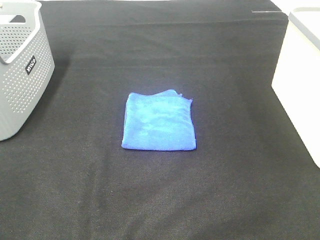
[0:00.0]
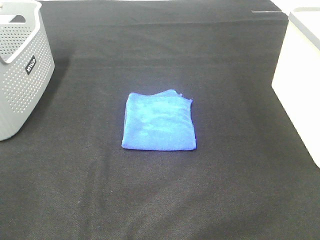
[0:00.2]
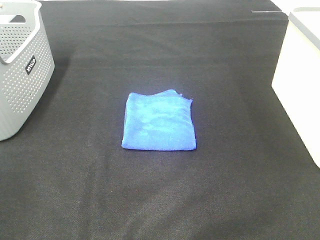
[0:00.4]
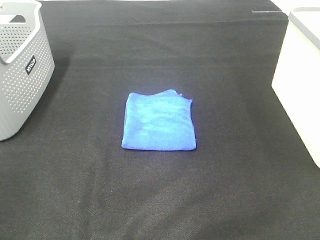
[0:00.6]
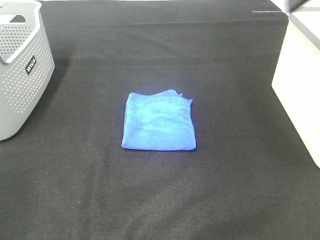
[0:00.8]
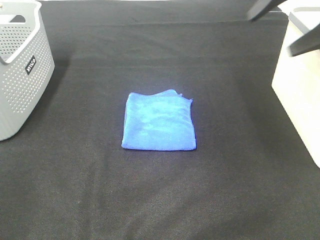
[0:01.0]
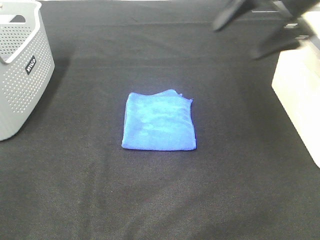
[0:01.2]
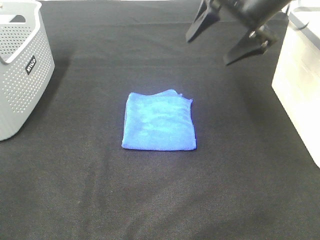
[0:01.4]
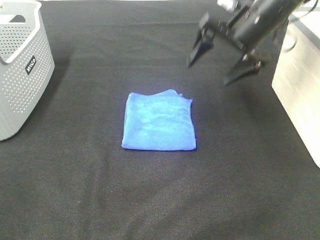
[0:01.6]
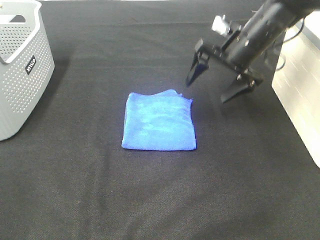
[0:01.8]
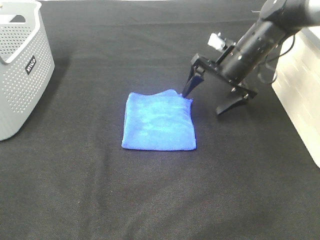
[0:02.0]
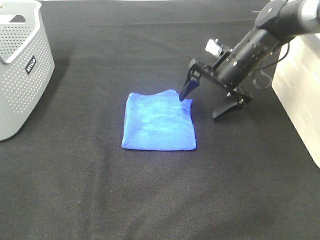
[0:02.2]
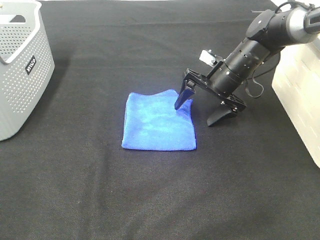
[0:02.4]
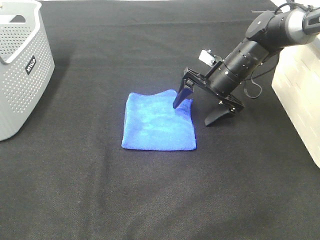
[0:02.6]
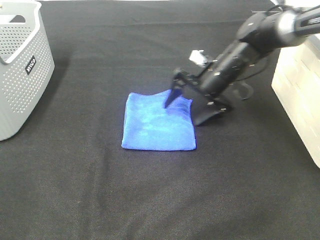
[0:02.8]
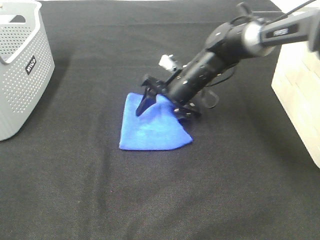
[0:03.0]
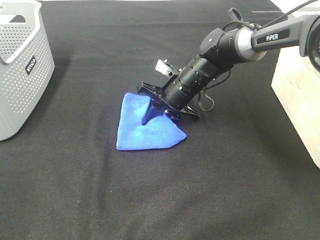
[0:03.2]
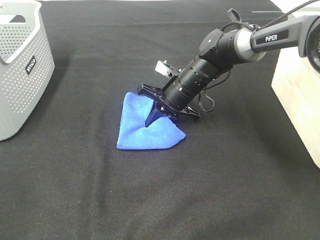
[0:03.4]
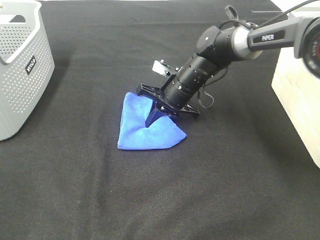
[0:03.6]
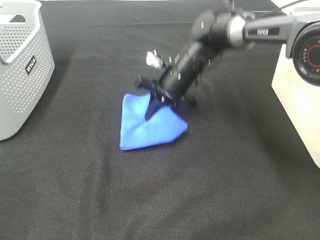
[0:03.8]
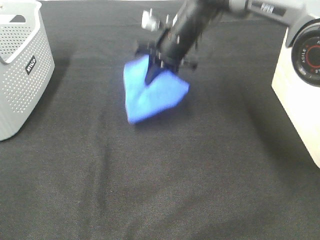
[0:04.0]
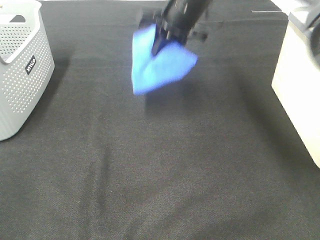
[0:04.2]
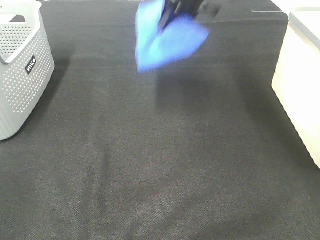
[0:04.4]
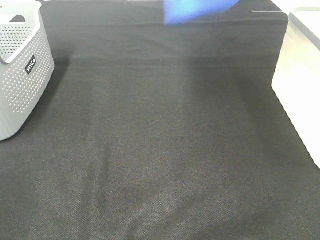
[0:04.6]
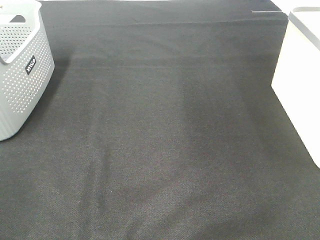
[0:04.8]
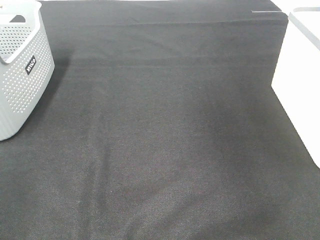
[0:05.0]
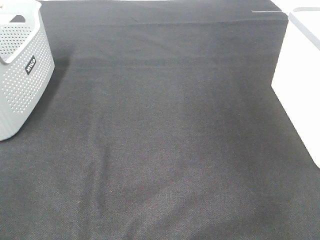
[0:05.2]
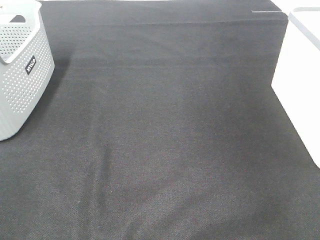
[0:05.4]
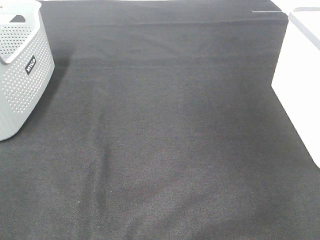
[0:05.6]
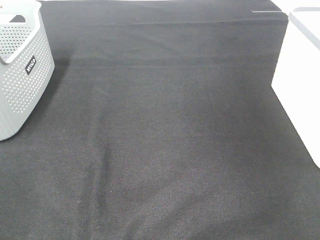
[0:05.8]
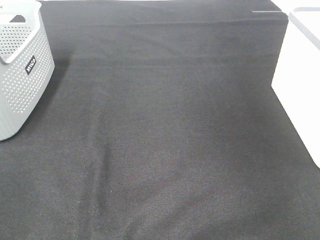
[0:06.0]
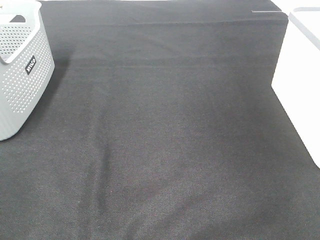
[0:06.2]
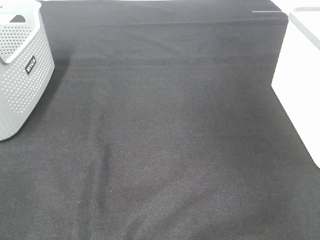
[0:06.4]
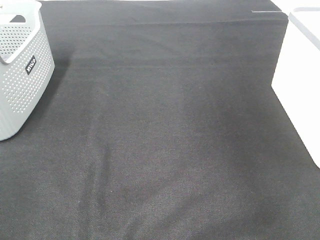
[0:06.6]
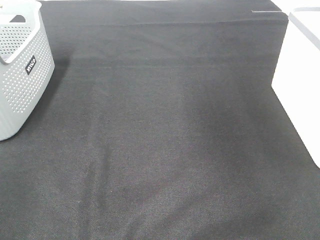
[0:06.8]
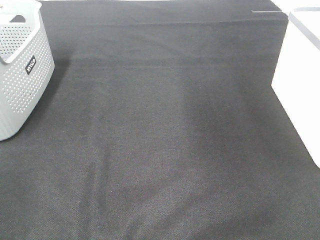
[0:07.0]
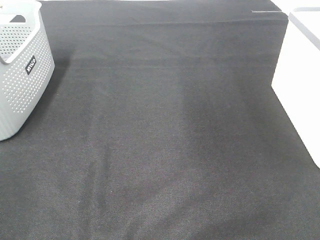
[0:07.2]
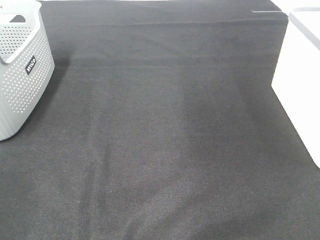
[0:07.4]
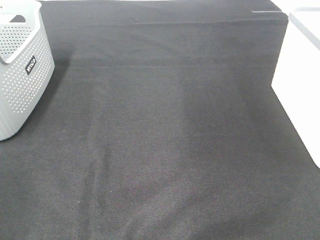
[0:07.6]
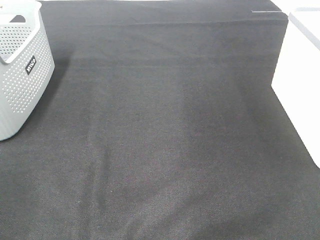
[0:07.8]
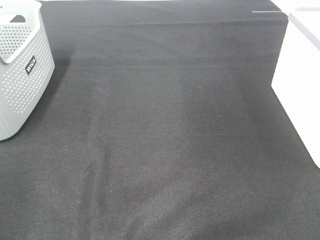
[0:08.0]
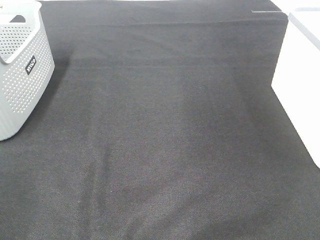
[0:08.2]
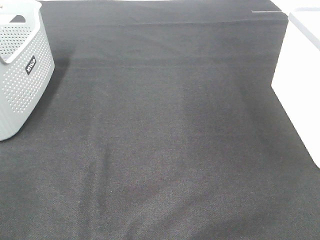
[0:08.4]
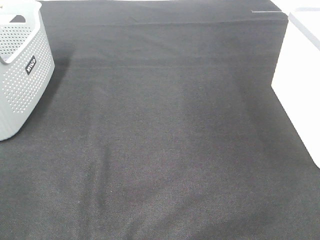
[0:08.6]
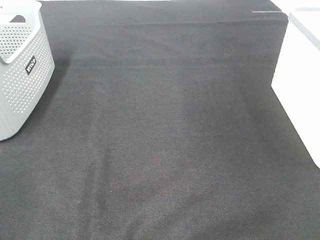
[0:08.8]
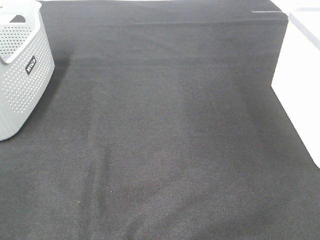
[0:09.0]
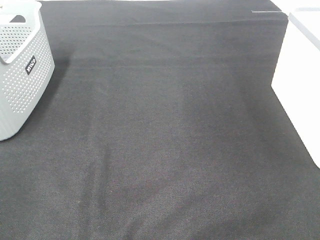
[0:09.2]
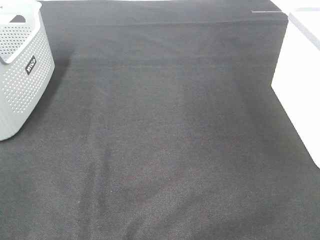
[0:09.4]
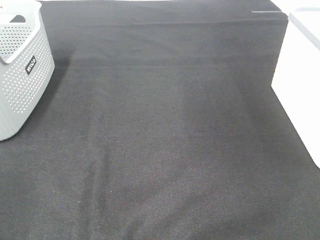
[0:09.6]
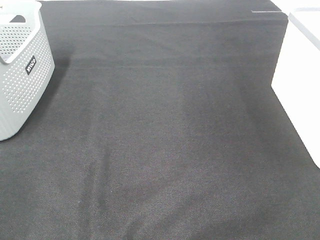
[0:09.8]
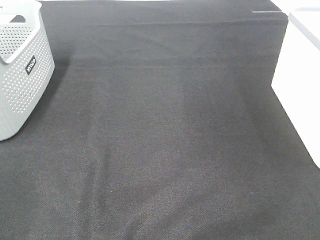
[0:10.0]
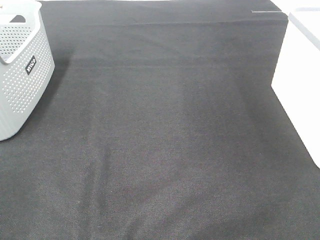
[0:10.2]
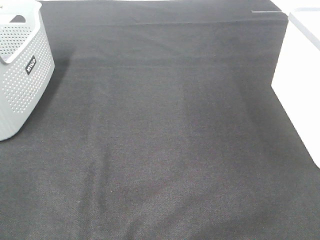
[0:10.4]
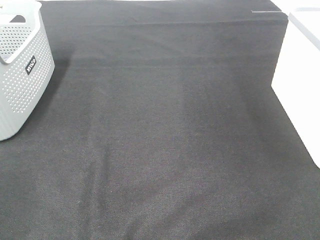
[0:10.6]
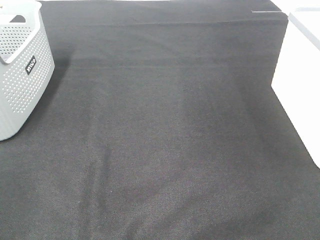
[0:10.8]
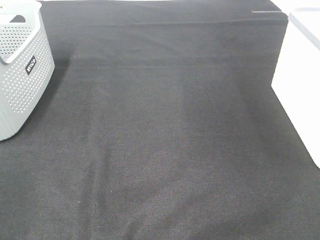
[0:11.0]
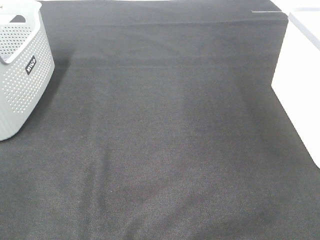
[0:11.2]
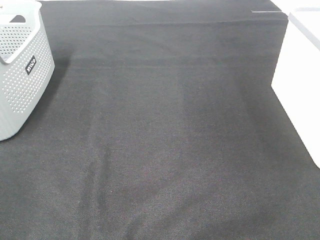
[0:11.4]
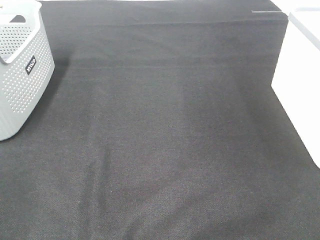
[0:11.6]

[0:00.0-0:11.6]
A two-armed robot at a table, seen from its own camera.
Step, 0:00.0 to 0:03.6: Right hand: grab the folded blue towel.
Step, 0:03.8 to 0:06.0: Right hand: place the blue towel in right basket.
0:00.0 to 0:01.4: The right gripper goes approximately 35 cm forward.
0:01.4 to 0:02.8: The right gripper travels downward by about 20 cm.
0:02.8 to 0:04.4: The right gripper heads upward, covering approximately 20 cm, and closes its fingers.
0:04.4 to 0:05.8: The right gripper travels to the right by some 35 cm.
0:10.2 to 0:11.6: Both grippers stay put.

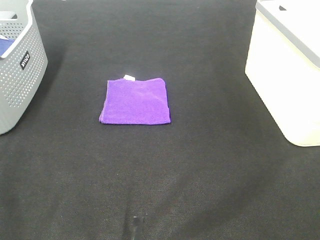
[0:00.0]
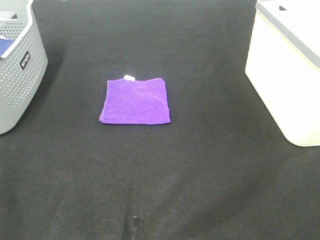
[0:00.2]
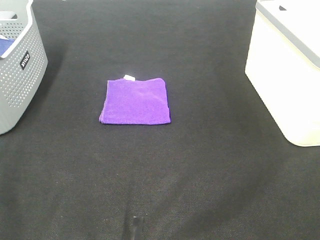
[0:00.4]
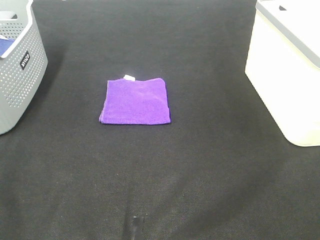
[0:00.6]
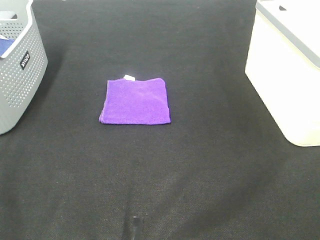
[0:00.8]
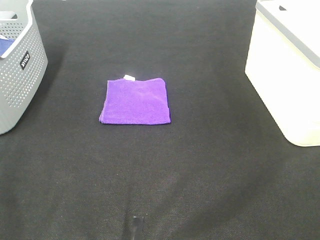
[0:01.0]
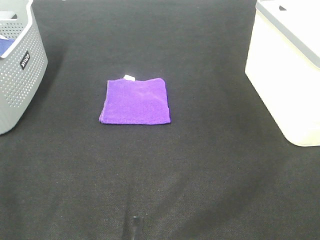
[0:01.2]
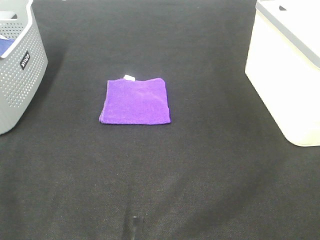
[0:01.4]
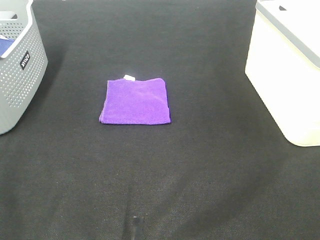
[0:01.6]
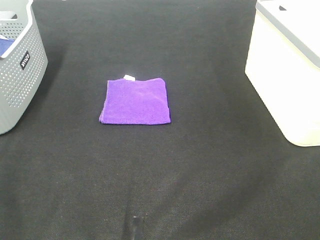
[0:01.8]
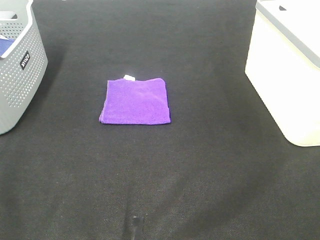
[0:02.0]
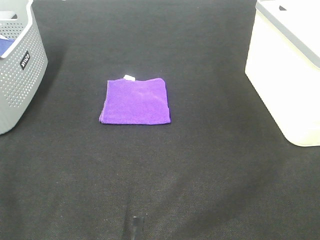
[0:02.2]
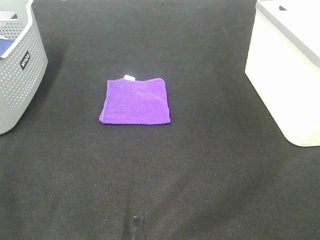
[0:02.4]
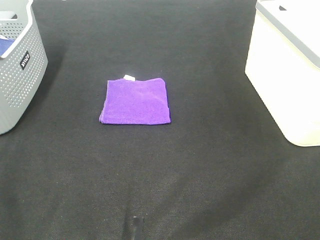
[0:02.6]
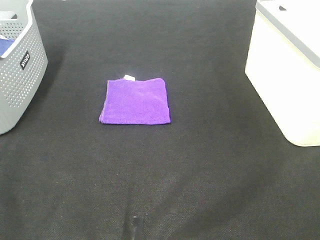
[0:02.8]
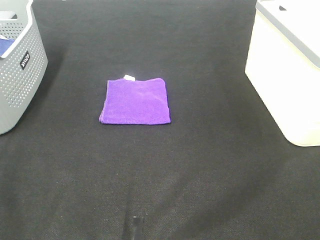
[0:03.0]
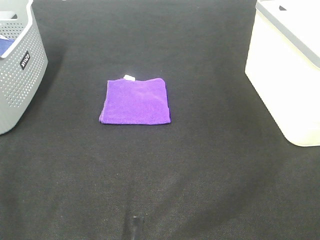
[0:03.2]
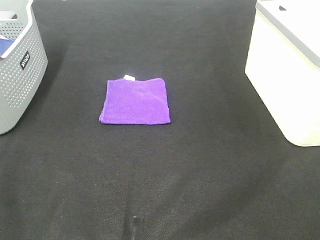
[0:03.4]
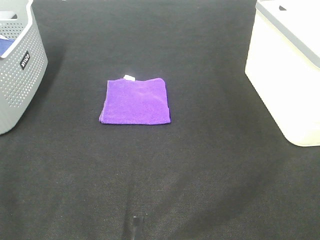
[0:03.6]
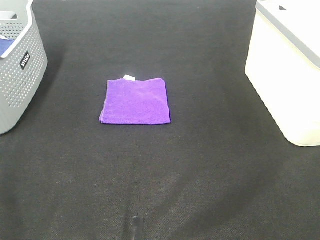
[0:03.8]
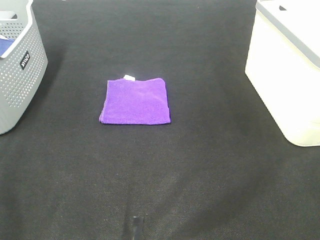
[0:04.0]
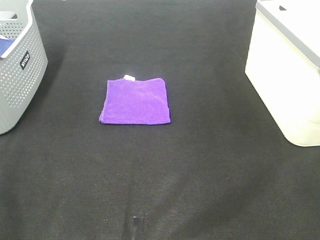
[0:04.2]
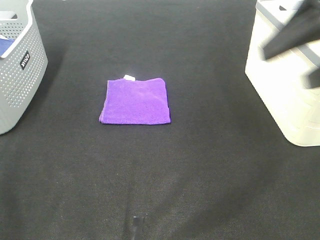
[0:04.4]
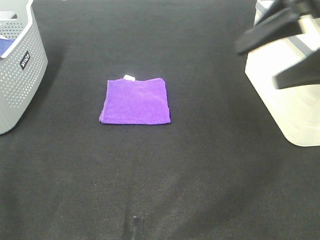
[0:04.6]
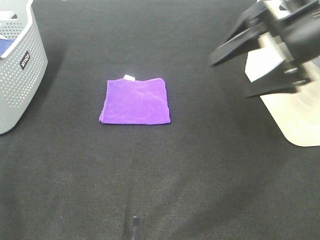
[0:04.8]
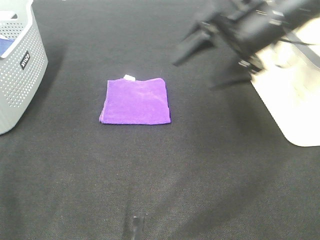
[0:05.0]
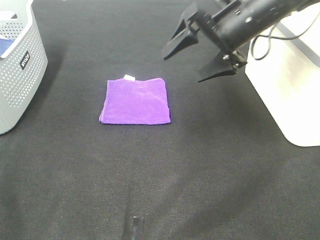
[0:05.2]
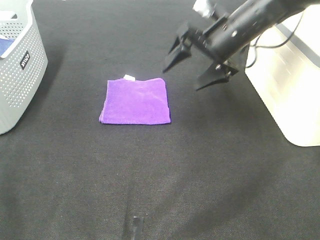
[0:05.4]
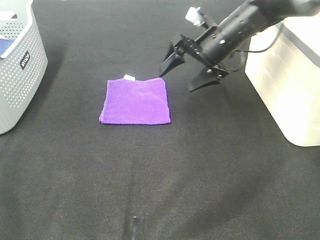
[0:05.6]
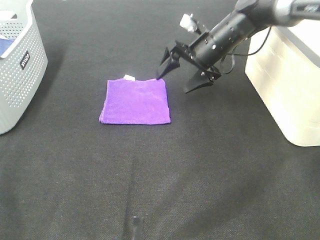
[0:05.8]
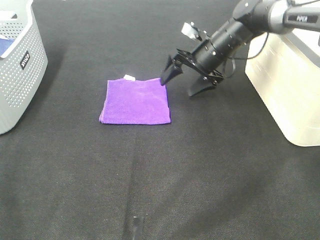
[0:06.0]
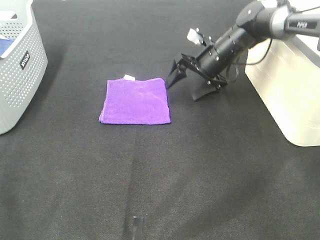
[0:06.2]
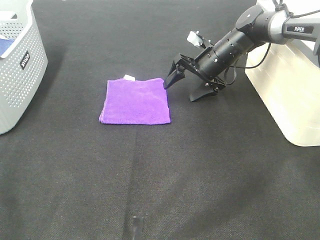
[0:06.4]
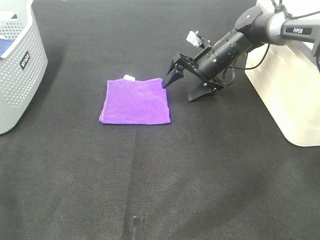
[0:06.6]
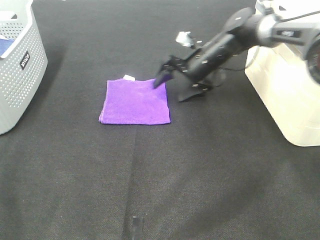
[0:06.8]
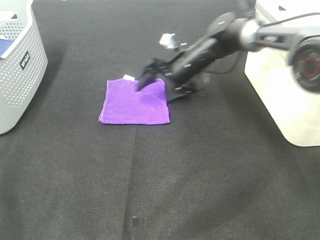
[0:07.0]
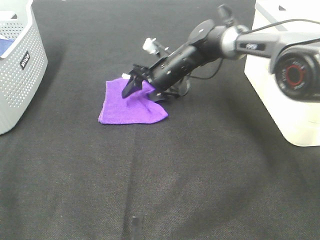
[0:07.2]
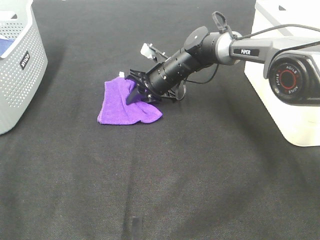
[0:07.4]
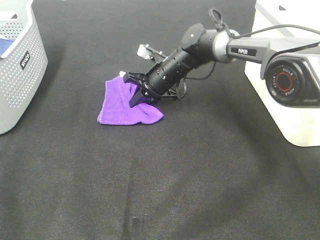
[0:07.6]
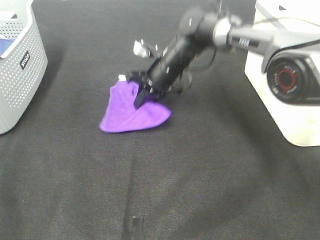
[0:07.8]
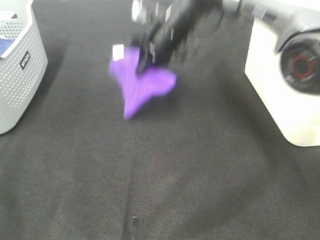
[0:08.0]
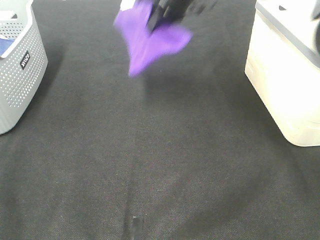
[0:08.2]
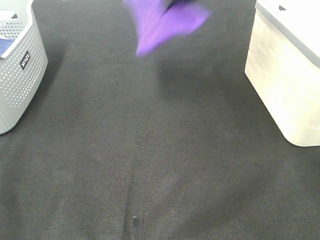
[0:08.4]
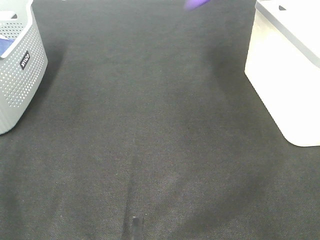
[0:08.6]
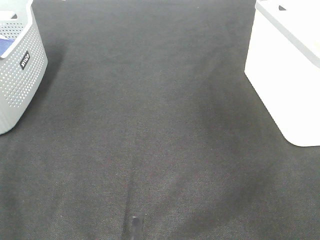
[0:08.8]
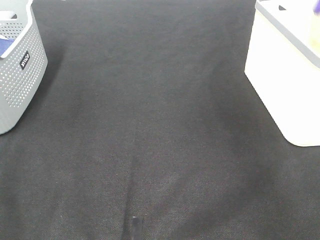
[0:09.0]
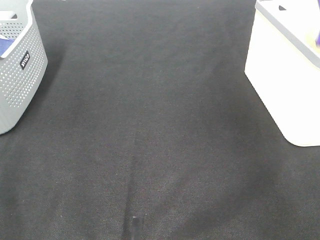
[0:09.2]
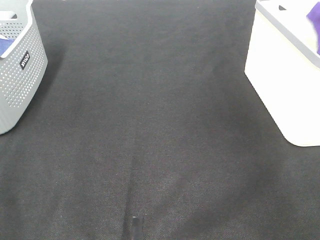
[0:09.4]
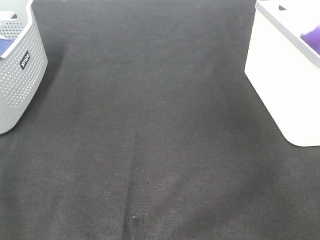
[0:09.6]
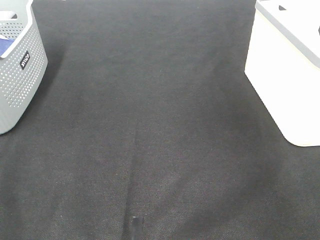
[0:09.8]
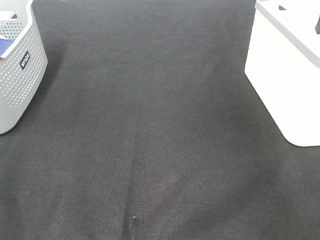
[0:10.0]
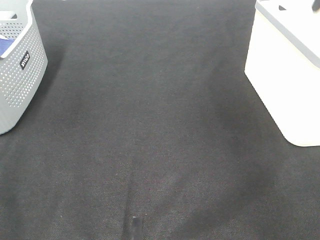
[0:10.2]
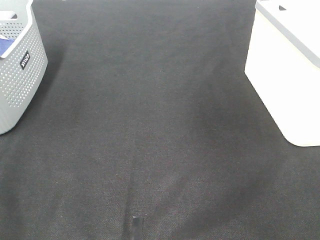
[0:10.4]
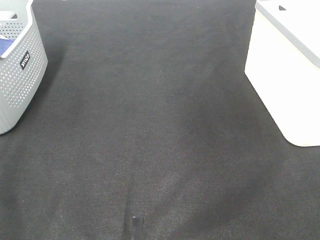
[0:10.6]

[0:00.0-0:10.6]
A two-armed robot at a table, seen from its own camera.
Step, 0:00.0 to 0:07.6: Right hand: grab the folded purple towel.
Step, 0:07.8 to 0:10.0: Right hand: place the purple towel in right basket.
0:00.0 to 0:03.0: The two grippers keep their place.
0:03.0 to 0:04.6: The right gripper travels forward by roughly 25 cm.
0:04.6 to 0:06.0: The right gripper goes approximately 30 cm forward and downward.
0:06.0 to 0:07.6: The right gripper is displaced to the left by some 10 cm, and closes up.
0:07.6 to 0:09.0: The right gripper is displaced to the right and upward by roughly 50 cm.
